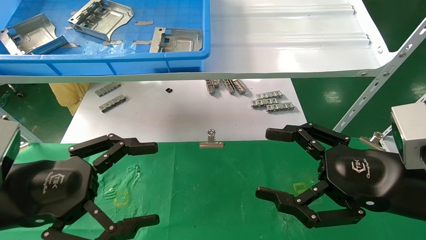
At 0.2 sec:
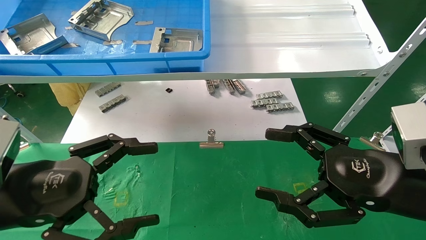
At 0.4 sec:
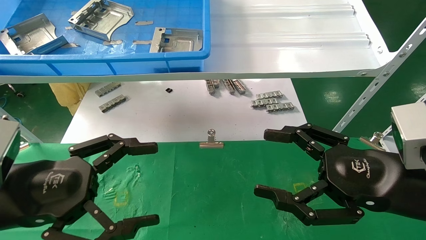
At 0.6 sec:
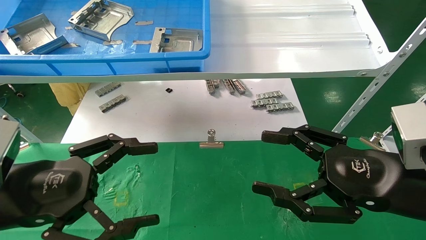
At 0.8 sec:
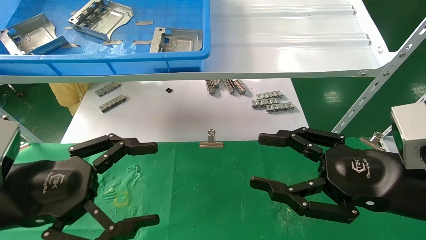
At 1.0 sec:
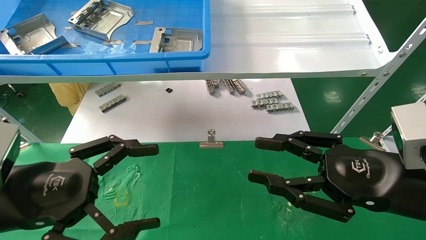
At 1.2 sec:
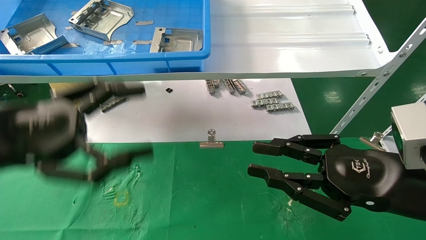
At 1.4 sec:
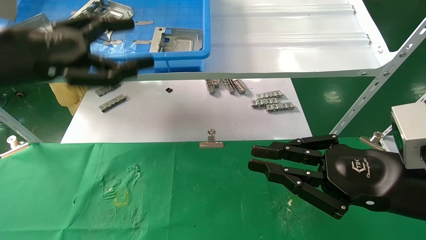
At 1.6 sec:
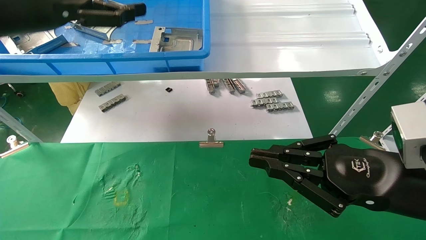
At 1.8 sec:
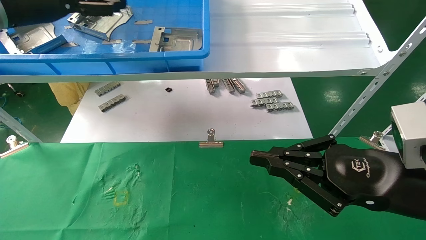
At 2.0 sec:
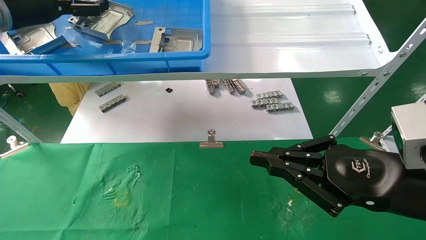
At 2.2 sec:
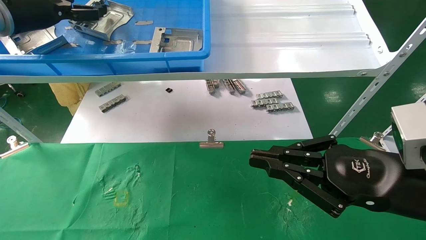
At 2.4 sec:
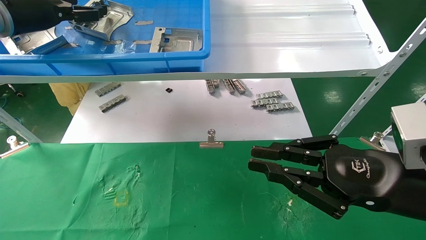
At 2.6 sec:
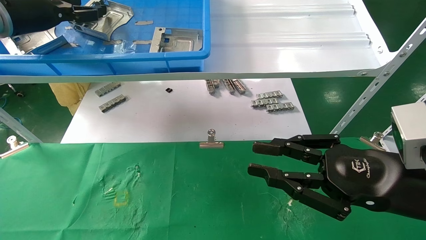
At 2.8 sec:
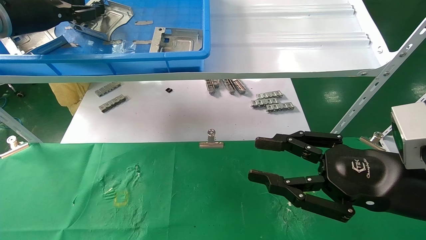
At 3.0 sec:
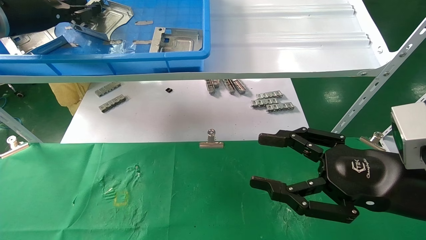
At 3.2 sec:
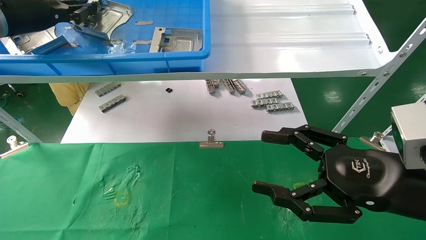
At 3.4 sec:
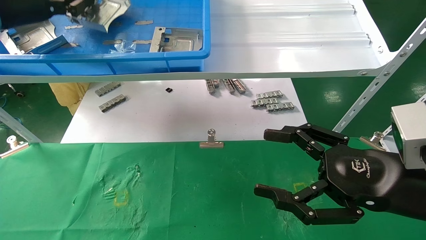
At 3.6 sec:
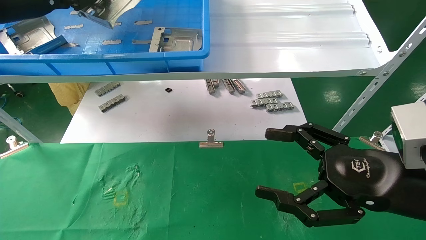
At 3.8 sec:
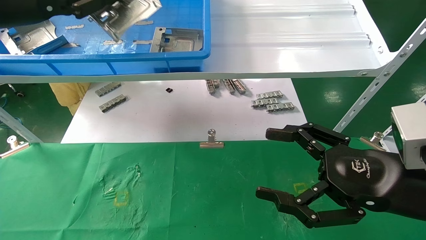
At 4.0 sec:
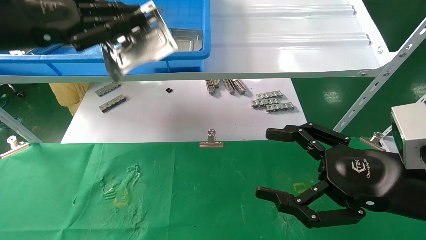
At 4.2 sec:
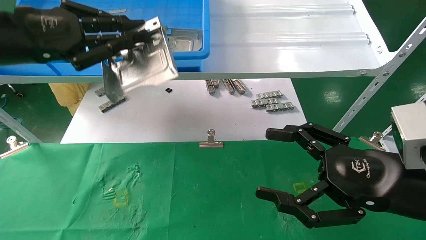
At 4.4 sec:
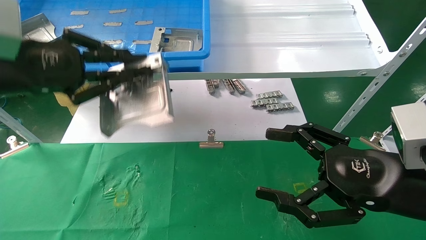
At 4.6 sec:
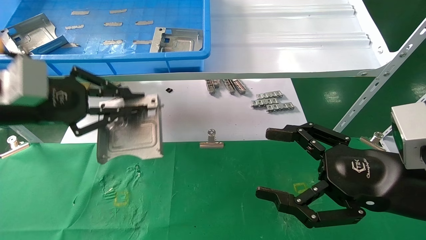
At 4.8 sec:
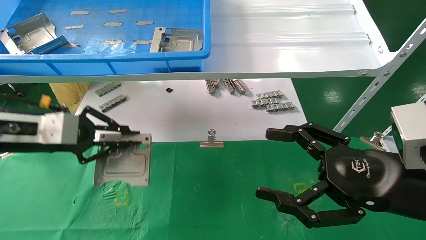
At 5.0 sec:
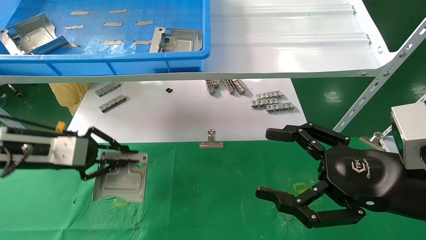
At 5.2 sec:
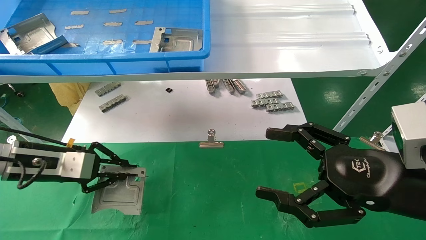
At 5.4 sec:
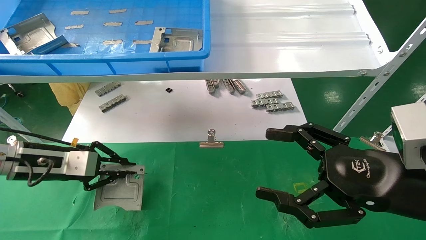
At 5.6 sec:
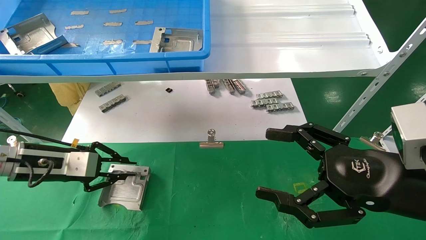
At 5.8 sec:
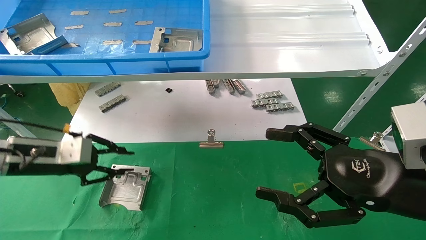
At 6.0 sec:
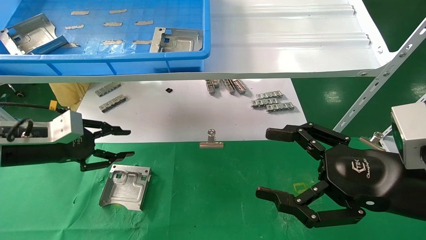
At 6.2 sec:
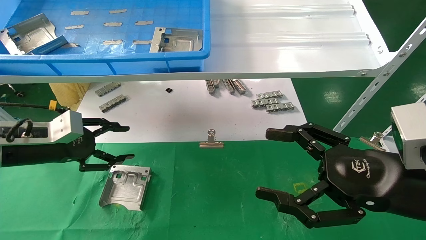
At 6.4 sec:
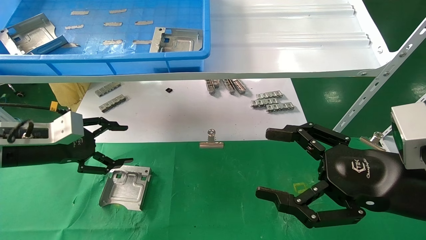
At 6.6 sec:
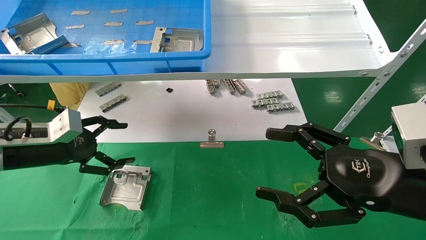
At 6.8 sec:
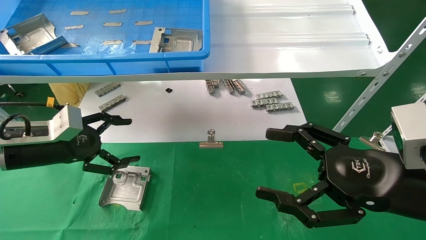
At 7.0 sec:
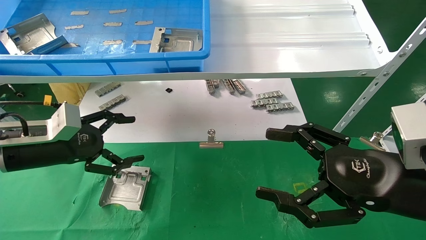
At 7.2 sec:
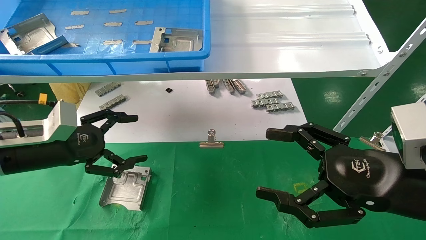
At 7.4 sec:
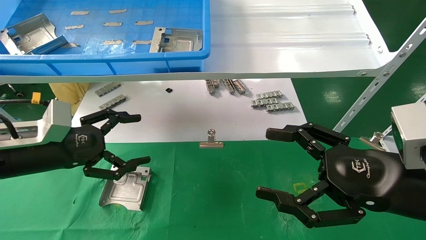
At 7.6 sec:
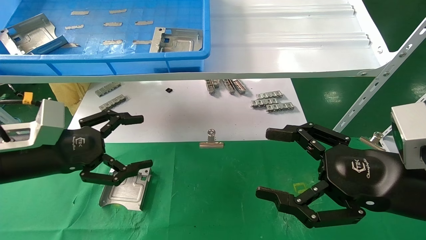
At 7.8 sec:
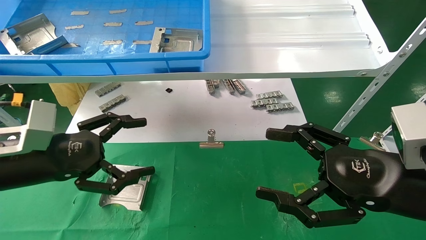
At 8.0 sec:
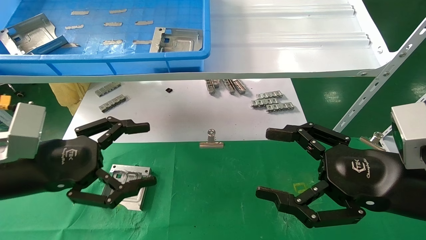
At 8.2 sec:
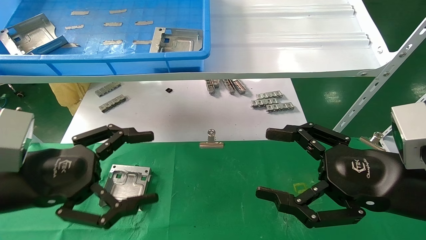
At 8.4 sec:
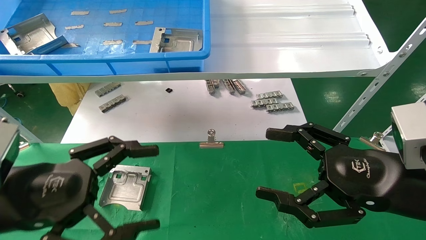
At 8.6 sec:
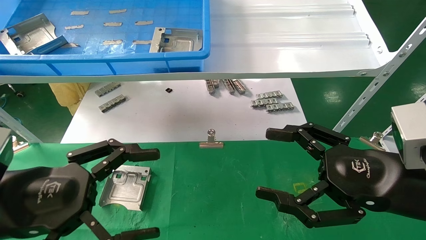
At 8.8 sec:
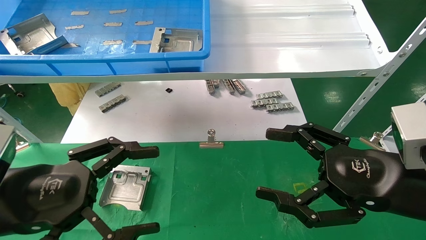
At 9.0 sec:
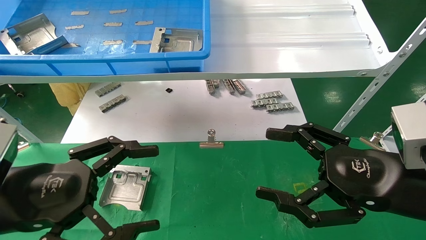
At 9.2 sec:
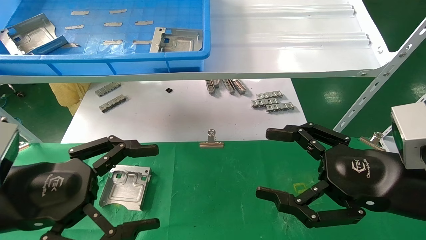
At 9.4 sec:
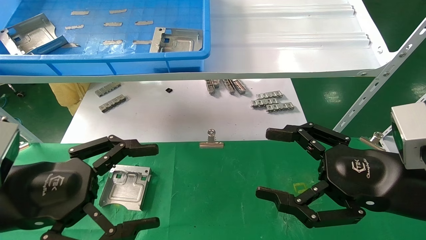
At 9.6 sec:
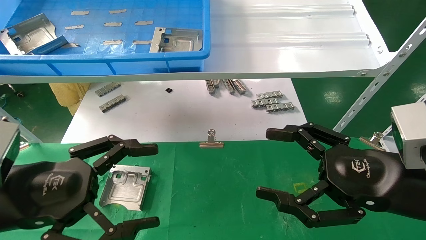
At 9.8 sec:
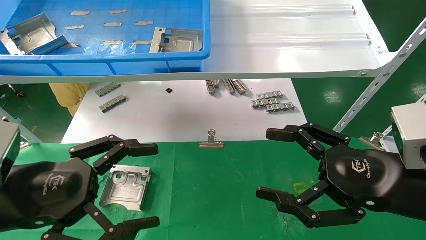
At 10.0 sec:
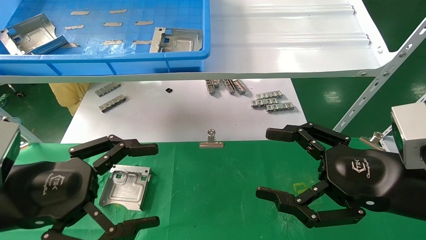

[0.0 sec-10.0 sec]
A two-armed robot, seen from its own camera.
Task of the whole recording: use the mechanical arm to pick up the parts and place them on the table.
Step, 1.4 sec to 3.4 sec: Pick up the hard drive bracket from the feeding area.
Step, 3.6 sec to 5.6 sec: Place the hard drive bracket into the box.
0.0 sec to 1.4 sec: The right gripper closes; the left gripper moves upward and forward, about 15 cm.
1.4 sec to 2.8 sec: The left gripper heads forward, upward and to the left, covering some 15 cm, and closes up.
2.8 sec to 4.2 sec: The right gripper opens. The left gripper shifts approximately 10 cm backward, and closes up.
4.2 sec to 5.8 sec: The left gripper moves downward, about 20 cm.
5.8 sec to 7.2 sec: The left gripper opens.
7.2 sec to 8.6 sec: The left gripper travels backward and to the right by approximately 15 cm.
8.6 sec to 10.0 sec: Both grippers stay put.

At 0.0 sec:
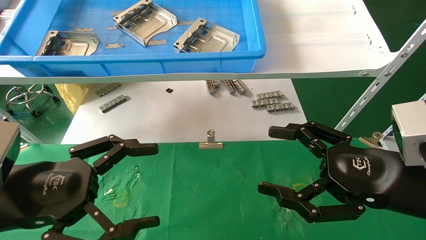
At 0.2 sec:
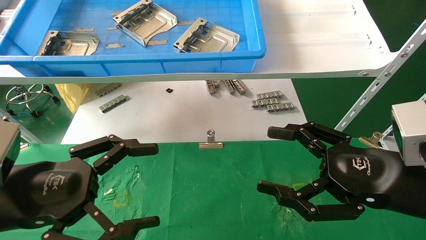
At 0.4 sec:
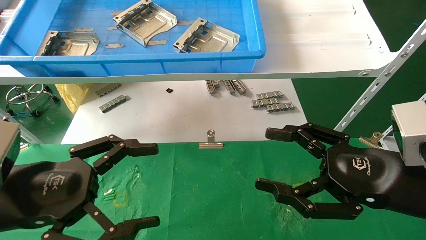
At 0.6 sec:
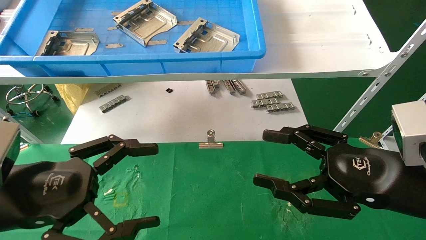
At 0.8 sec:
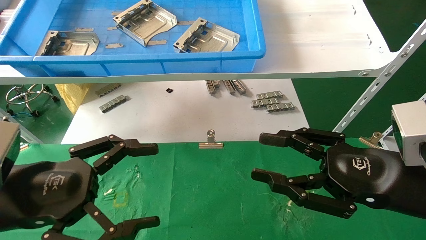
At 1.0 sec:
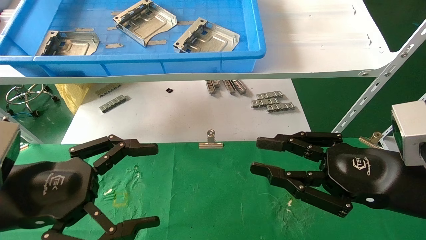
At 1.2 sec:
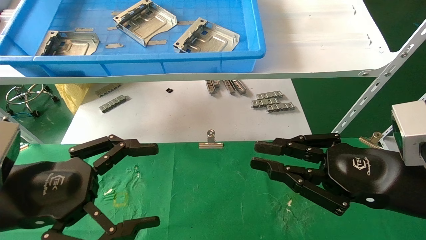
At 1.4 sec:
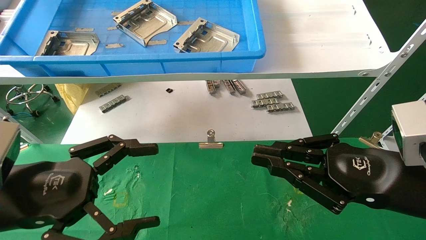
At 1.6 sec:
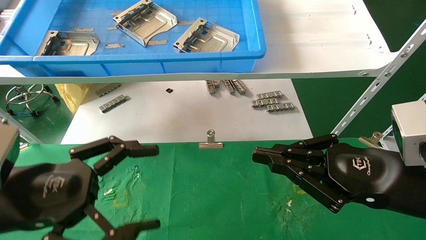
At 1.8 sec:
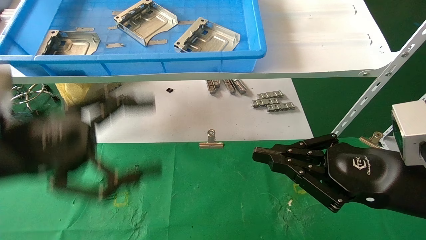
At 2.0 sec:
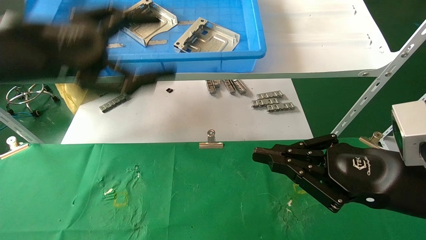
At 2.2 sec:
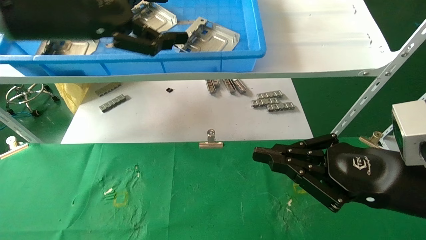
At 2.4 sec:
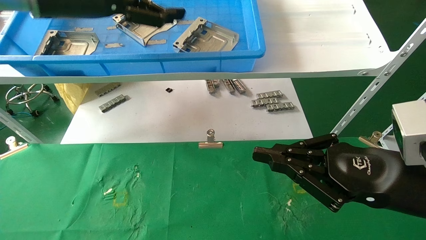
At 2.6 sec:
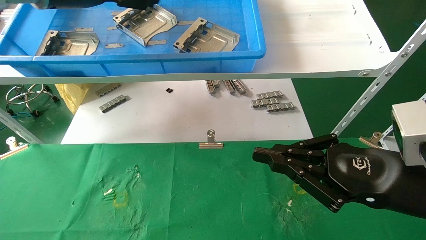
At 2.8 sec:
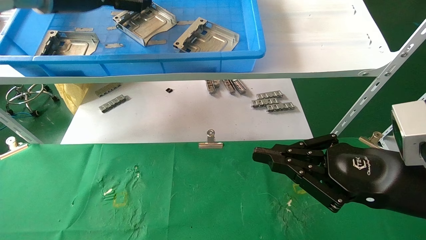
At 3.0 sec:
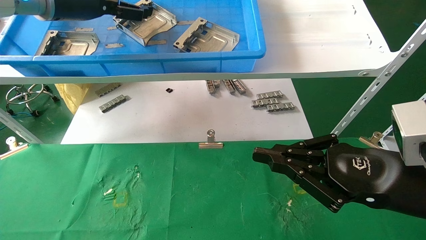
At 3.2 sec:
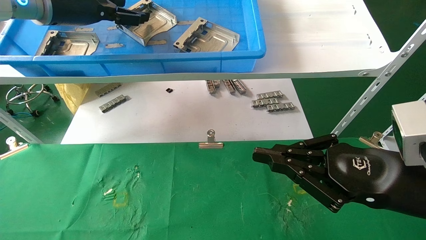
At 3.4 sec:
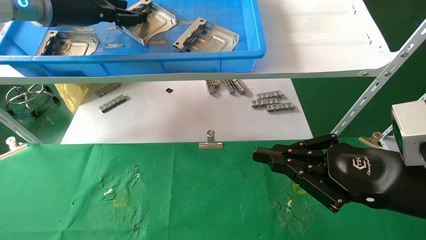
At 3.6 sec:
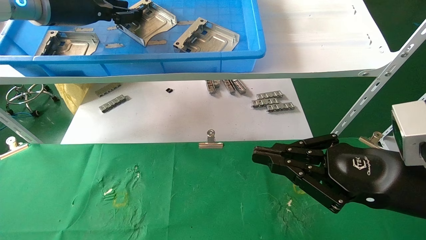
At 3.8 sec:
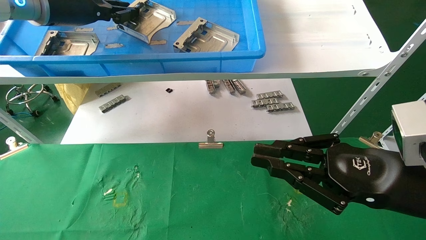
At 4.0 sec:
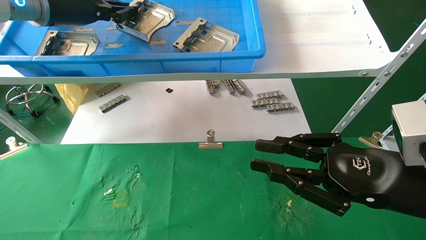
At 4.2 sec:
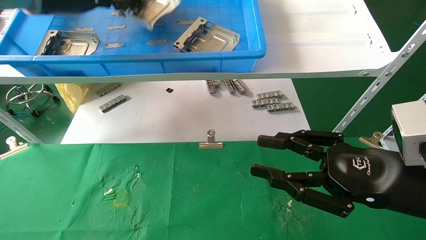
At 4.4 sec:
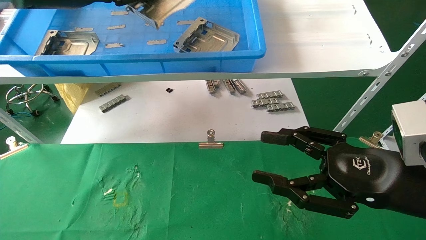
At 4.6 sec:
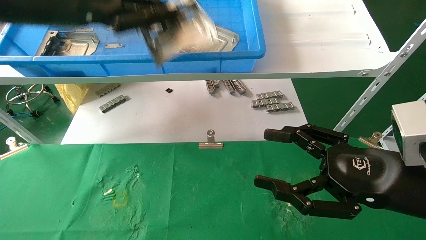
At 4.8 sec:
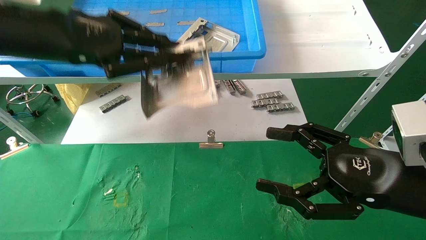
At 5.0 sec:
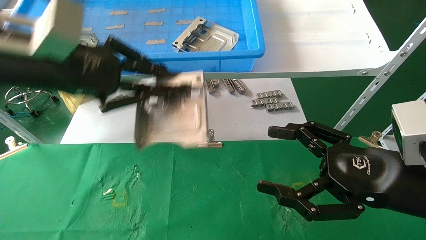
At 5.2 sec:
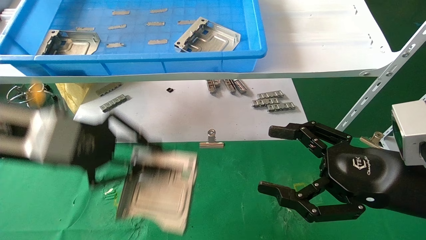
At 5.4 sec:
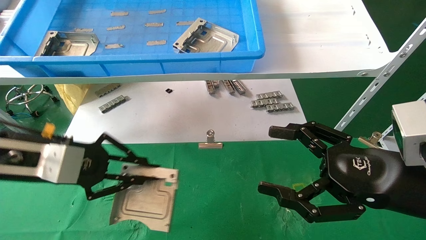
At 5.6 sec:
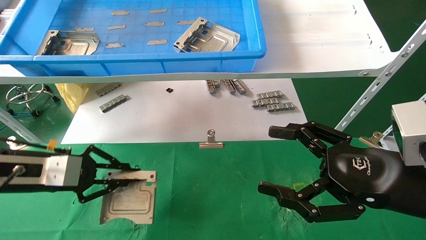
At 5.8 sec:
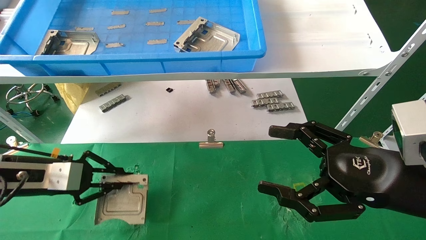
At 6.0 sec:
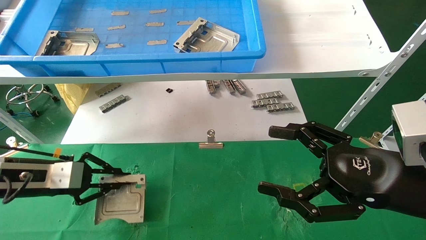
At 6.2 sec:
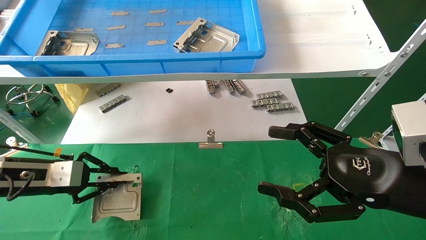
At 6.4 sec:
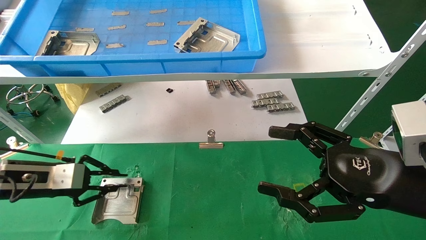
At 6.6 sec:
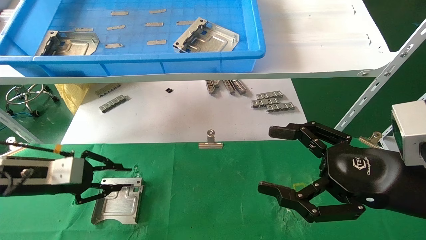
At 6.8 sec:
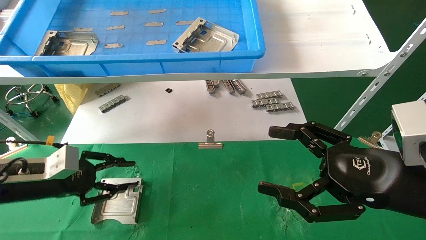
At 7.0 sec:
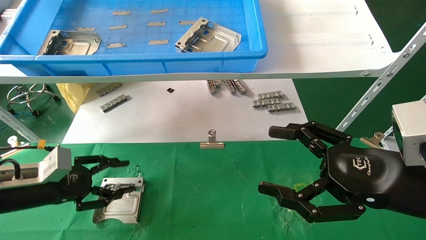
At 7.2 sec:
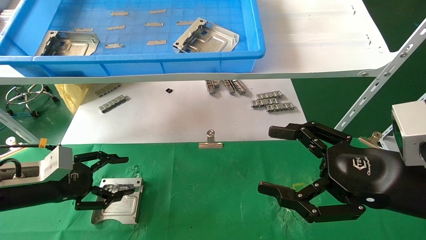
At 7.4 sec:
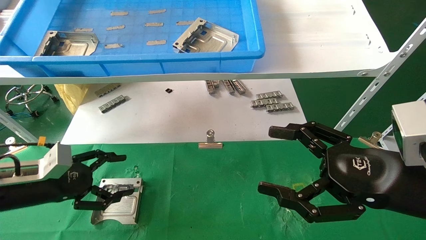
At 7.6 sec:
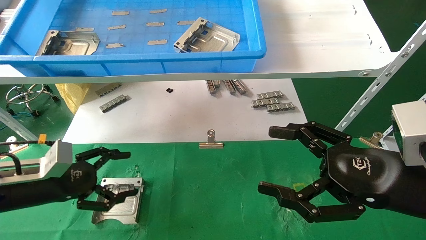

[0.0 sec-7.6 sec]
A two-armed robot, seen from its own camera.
Task of the whole recording: use the mechanical arm to pick up the parts and place them on the table.
Step, 2.2 sec to 4.0 sec: Pick up the hard drive bracket from the feeding area.
Step, 4.2 sec to 6.4 sec: Place the hard drive bracket into the box.
0.0 sec to 1.6 sec: The right gripper closes its fingers.
1.6 sec to 3.0 sec: The left gripper travels upward and forward by roughly 30 cm.
3.0 sec to 4.6 sec: The left gripper travels backward by some 10 cm, and closes. Meanwhile the right gripper opens its fingers.
4.6 sec to 6.0 sec: The right gripper opens; the left gripper is displaced downward and to the left by some 30 cm.
6.0 sec to 7.6 sec: The left gripper opens.
